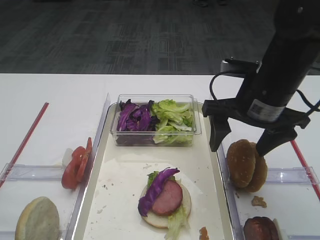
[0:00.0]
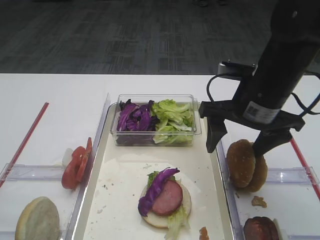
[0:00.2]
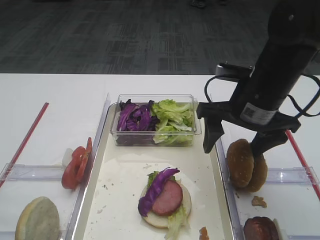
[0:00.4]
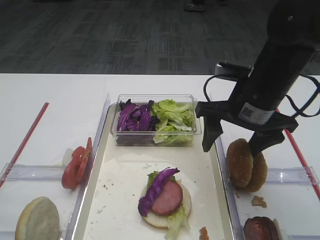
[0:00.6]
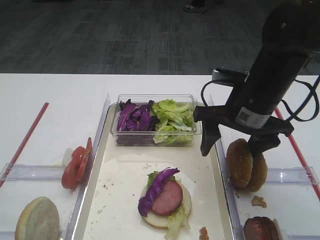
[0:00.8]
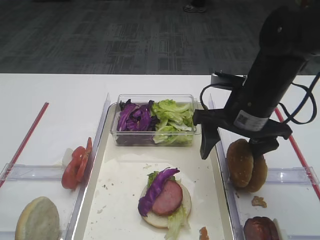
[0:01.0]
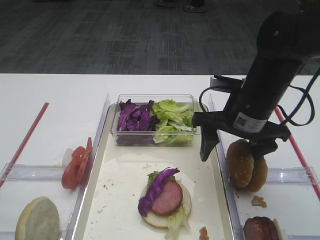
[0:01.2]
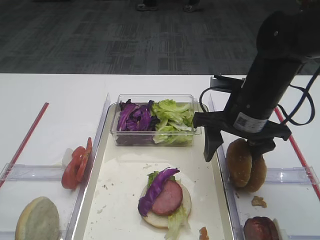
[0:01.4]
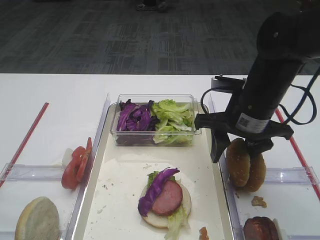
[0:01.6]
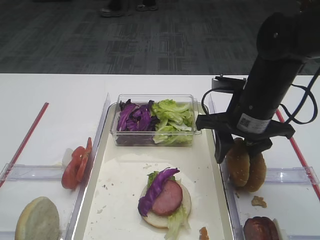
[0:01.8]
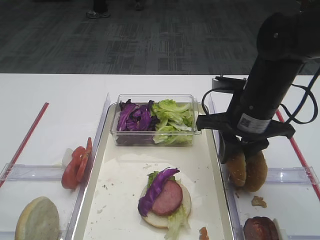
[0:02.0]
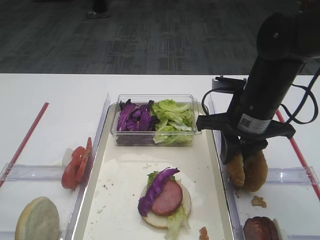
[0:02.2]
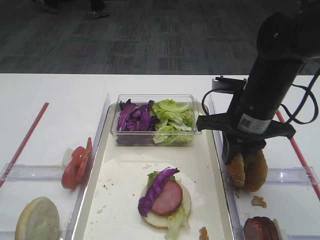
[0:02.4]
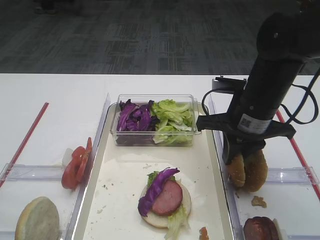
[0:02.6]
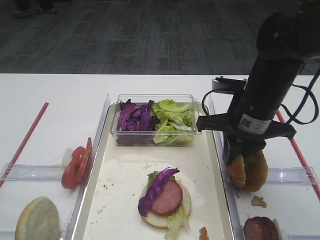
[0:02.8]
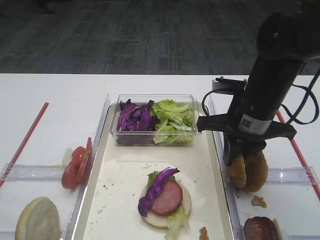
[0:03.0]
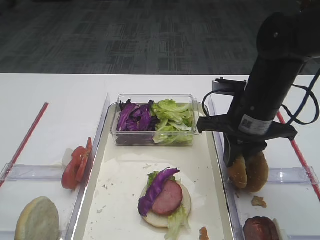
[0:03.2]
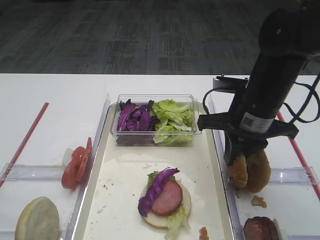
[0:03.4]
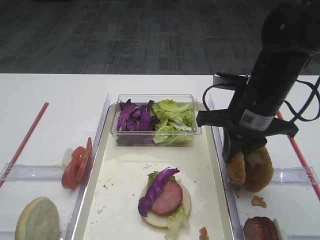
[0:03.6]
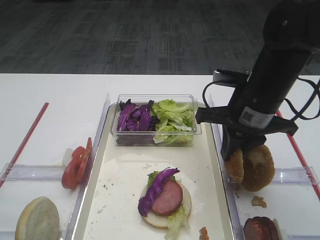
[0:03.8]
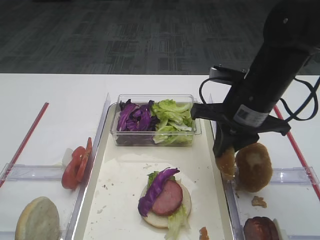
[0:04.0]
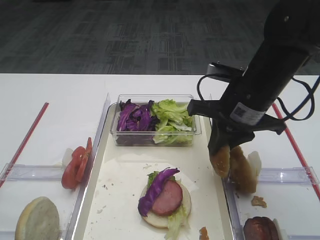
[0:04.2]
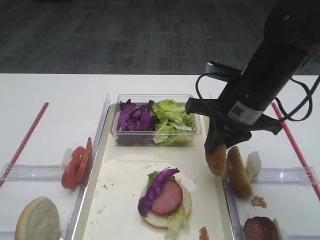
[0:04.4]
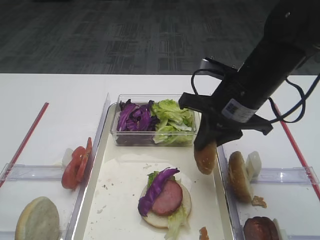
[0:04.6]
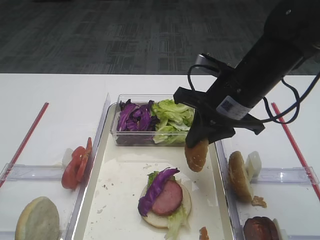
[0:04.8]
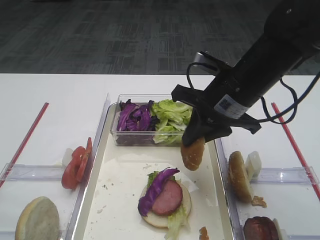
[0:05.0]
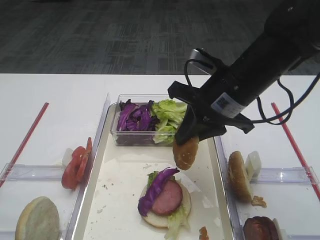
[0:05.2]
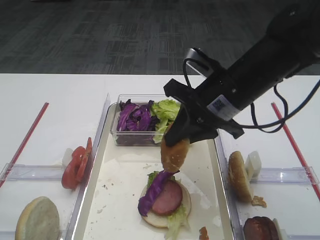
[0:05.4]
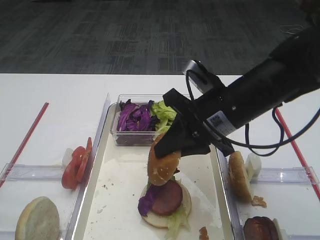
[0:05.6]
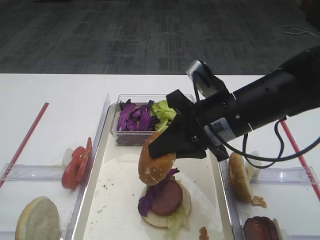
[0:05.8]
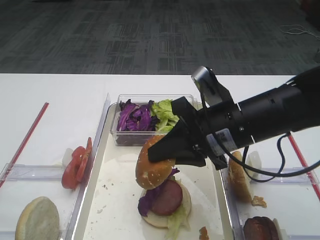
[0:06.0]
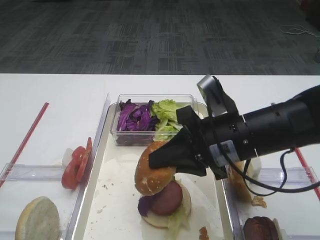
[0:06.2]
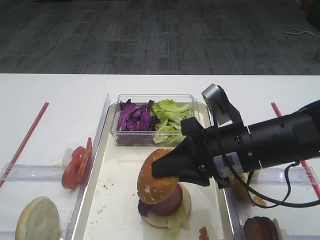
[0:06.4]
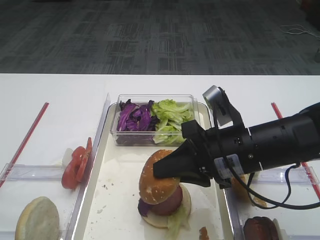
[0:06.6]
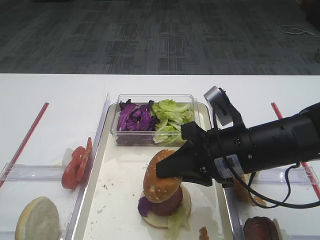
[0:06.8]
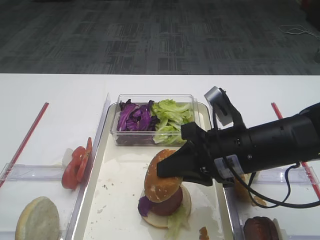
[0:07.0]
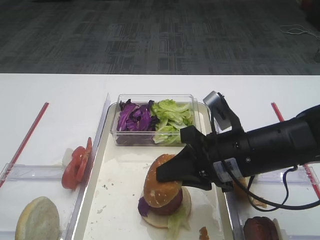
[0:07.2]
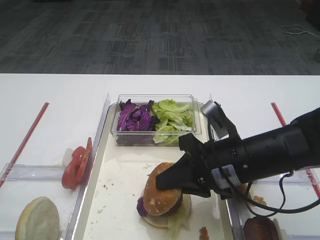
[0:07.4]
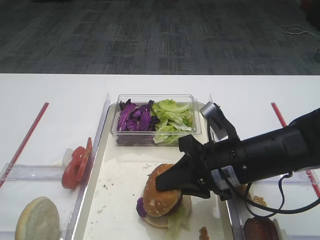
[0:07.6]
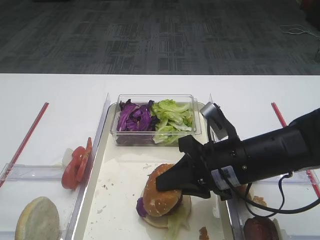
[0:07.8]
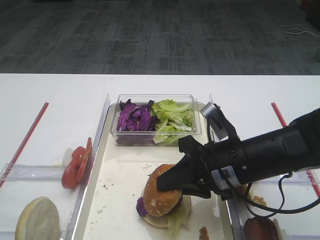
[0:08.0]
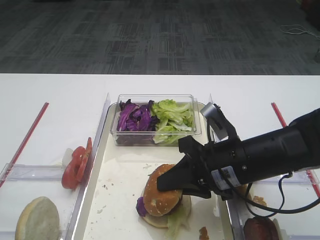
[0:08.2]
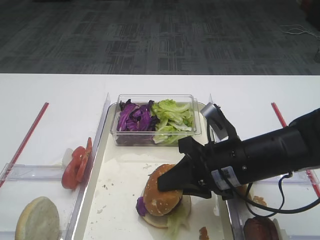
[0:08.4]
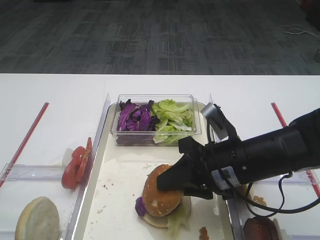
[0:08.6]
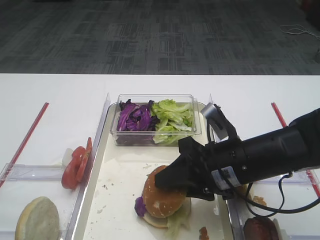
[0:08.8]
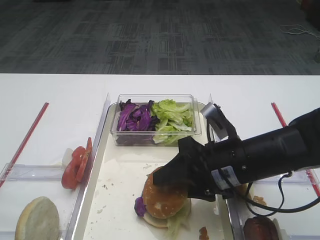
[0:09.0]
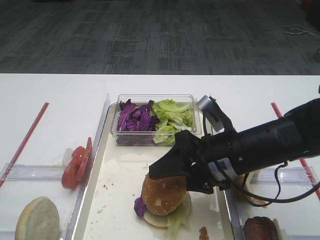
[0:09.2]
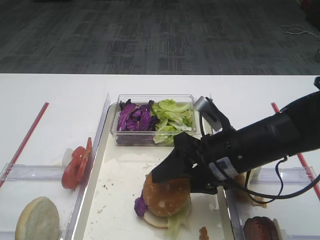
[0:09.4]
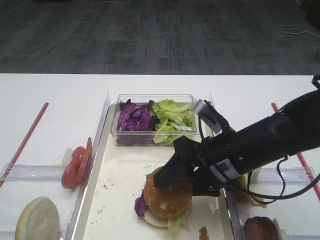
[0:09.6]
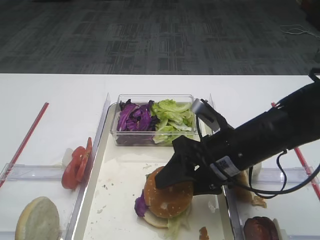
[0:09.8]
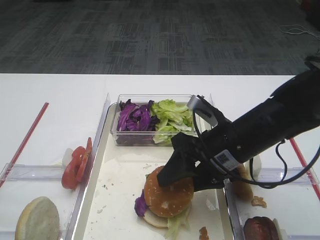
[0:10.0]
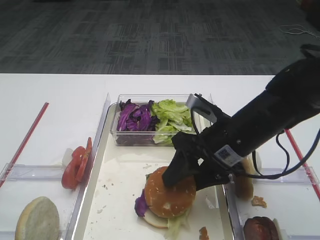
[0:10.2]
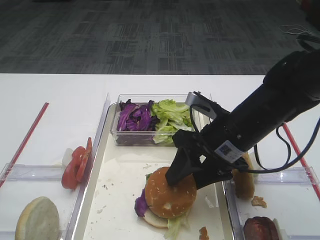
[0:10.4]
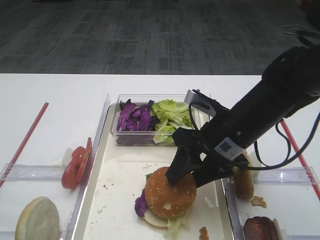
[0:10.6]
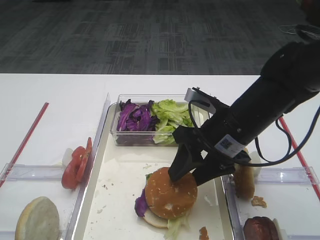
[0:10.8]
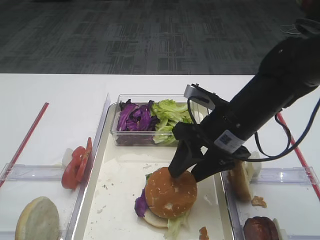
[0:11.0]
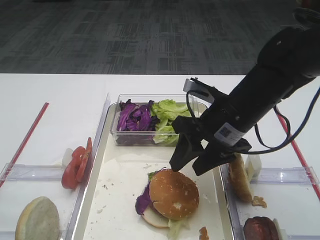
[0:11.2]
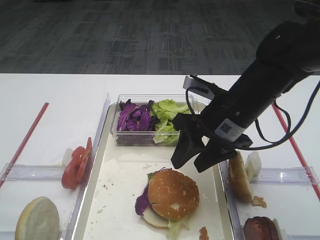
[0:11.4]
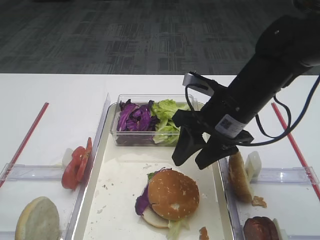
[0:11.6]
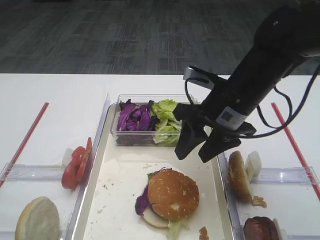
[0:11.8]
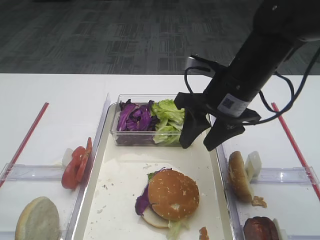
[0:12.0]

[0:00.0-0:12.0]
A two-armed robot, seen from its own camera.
Step, 0:00.0 to 0:04.2: Pick up the hamburger lid with the right gripper.
Step, 0:04.6 to 0:11.2: Place the hamburger lid on the purple cabbage with the right gripper.
0:00.0 to 0:01.6: There are only small adjustments of the grippers.
0:01.6 to 0:03.0: The right gripper closes up.
0:03.0 to 0:04.4: There are only small adjustments of the grippers.
0:04.4 to 0:06.0: The right gripper shifts by approximately 5 cm.
0:06.0 to 0:07.6: The right gripper is displaced downward by about 5 cm.
0:07.6 to 0:09.0: The right gripper opens up.
0:10.4 to 0:12.0: The right gripper is displaced upward by about 5 cm.

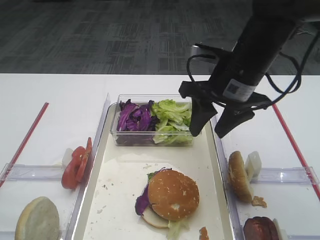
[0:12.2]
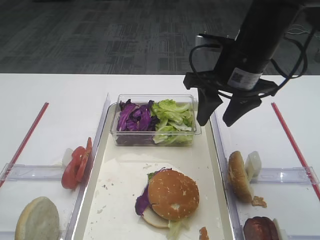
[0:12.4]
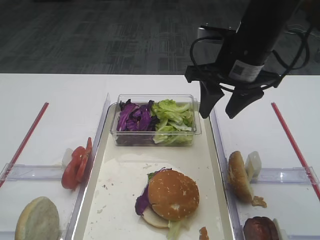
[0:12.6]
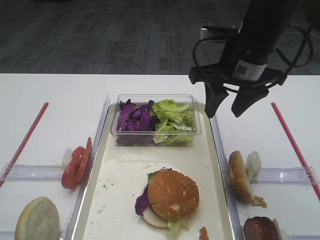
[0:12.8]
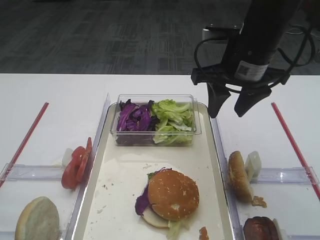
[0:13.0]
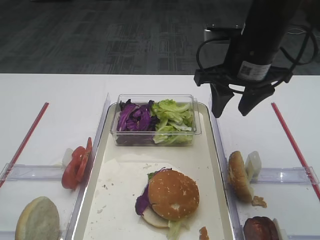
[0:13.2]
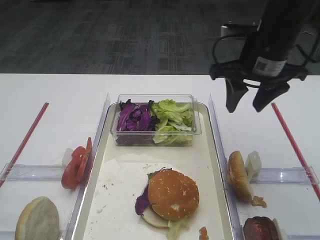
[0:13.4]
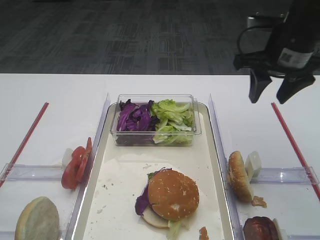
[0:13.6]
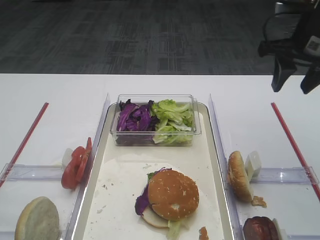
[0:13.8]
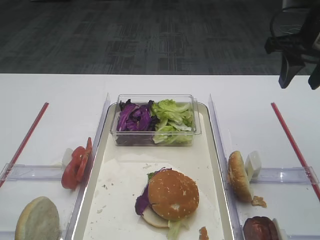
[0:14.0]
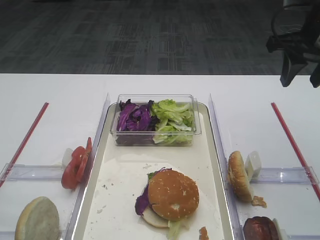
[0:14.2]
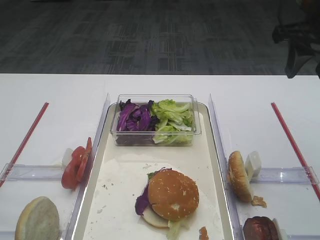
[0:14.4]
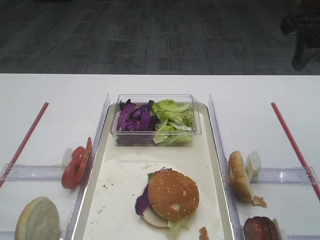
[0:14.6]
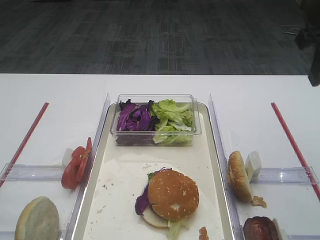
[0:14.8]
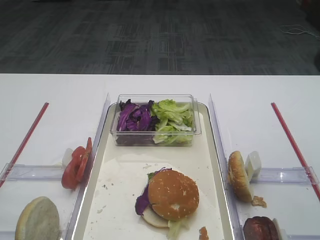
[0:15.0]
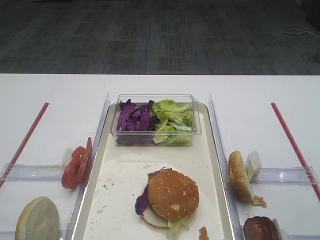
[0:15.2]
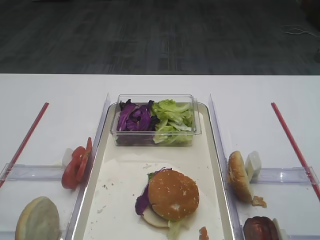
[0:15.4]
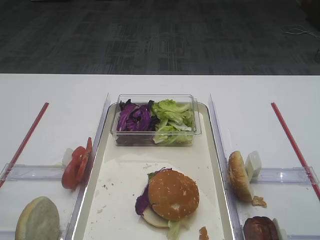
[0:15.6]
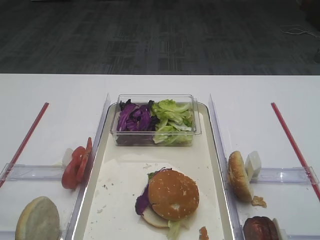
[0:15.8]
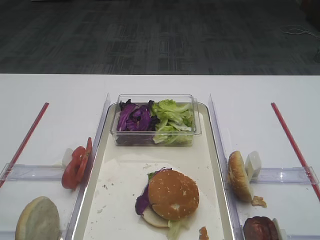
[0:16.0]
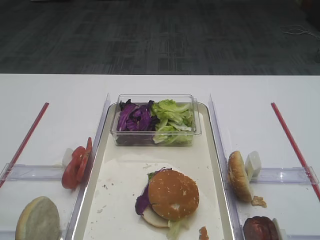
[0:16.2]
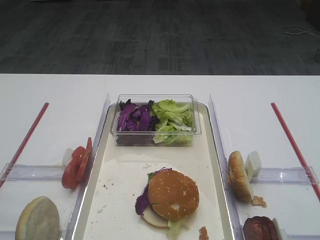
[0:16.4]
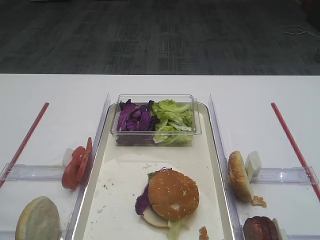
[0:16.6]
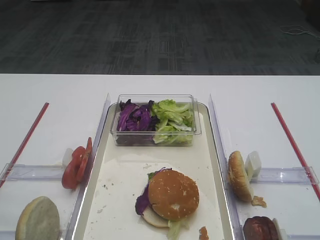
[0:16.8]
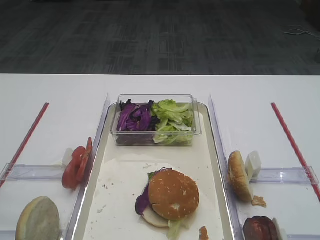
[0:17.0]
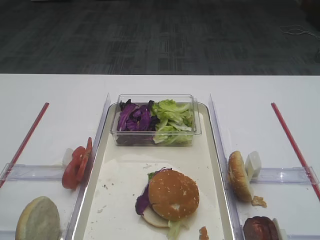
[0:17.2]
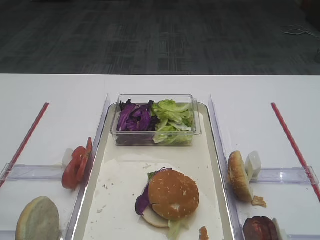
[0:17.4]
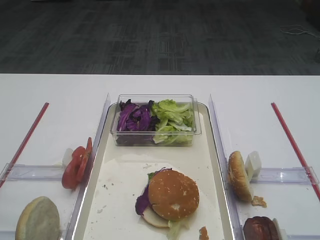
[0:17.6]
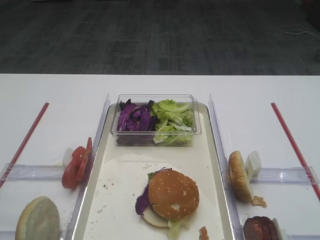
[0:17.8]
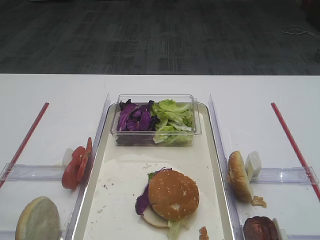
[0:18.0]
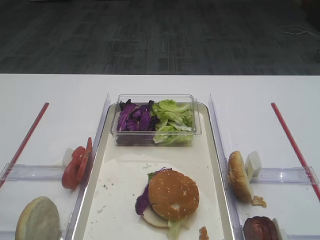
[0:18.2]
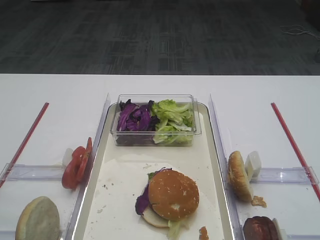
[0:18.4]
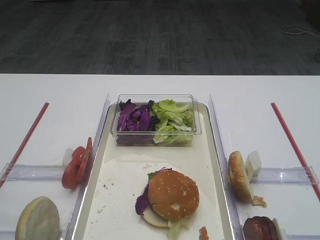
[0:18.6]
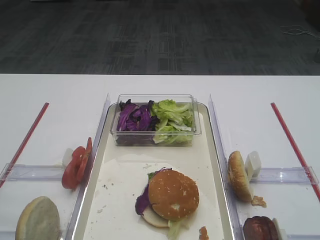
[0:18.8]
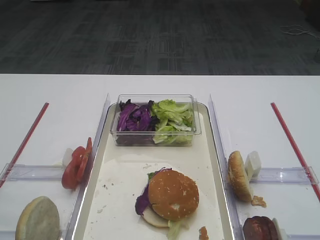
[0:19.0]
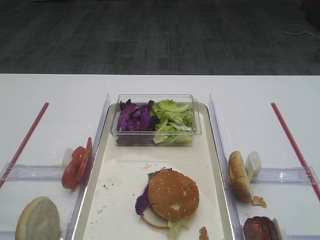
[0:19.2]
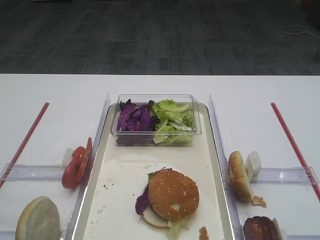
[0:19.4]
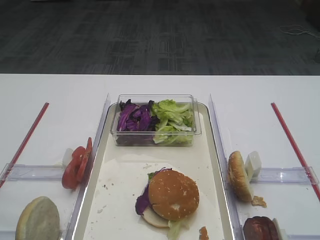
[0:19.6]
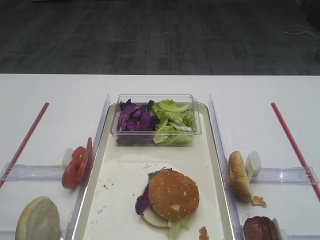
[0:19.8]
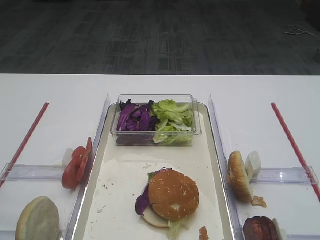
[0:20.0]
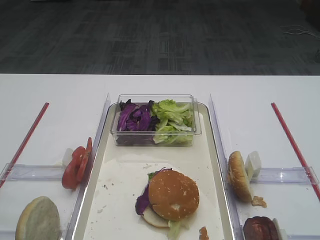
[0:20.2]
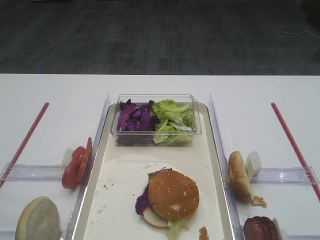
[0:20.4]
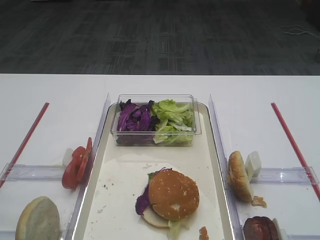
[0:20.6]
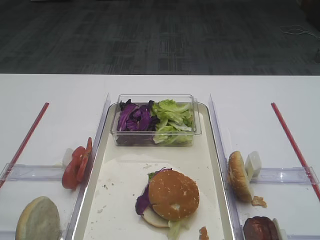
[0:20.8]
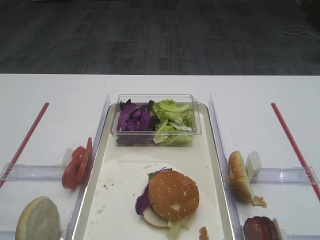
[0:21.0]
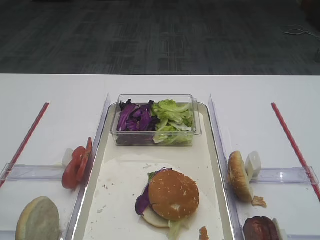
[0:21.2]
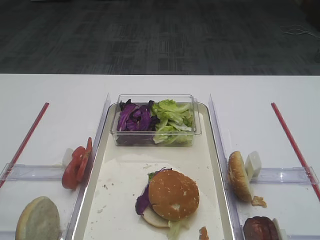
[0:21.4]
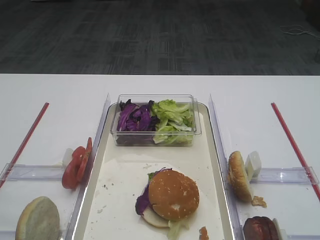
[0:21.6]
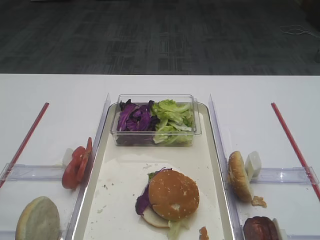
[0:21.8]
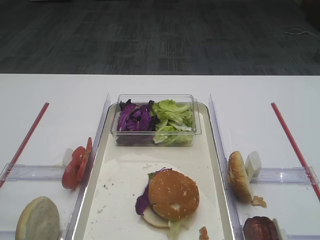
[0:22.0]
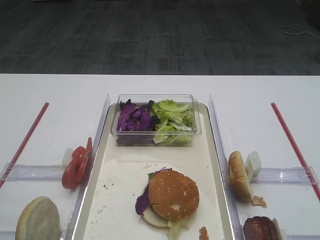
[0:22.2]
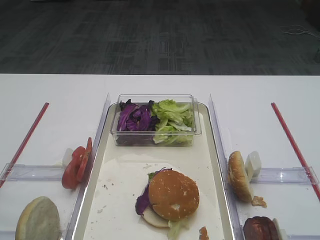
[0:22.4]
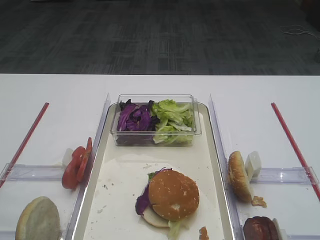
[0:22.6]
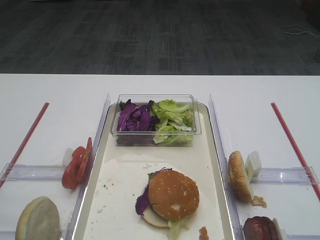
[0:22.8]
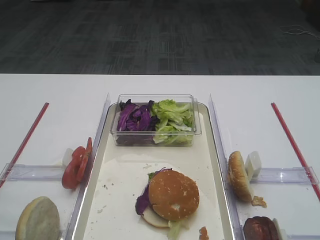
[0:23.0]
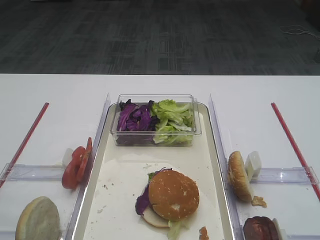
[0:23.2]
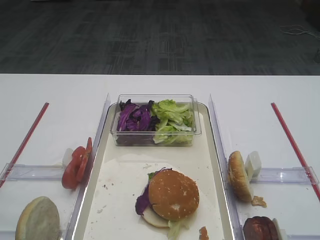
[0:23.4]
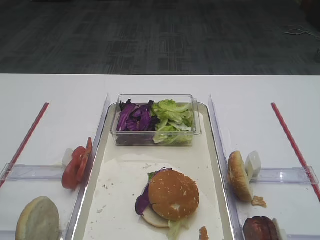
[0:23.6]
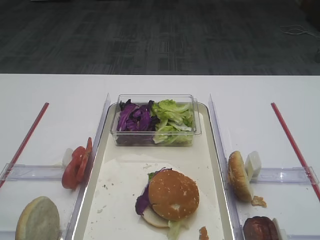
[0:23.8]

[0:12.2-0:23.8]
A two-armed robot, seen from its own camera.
0:12.2 to 0:13.6: The right gripper shifts approximately 10 cm to the right.
0:13.6 to 0:15.0: The right gripper shifts approximately 15 cm backward, to the right and upward.
0:21.0 to 0:23.8: The two grippers keep their place.
